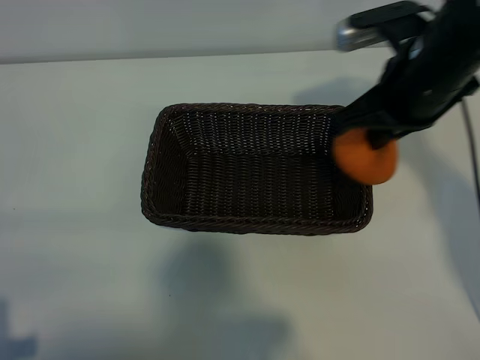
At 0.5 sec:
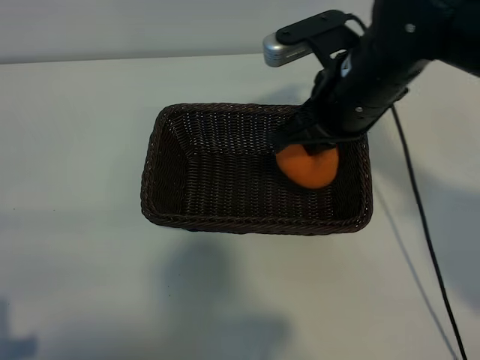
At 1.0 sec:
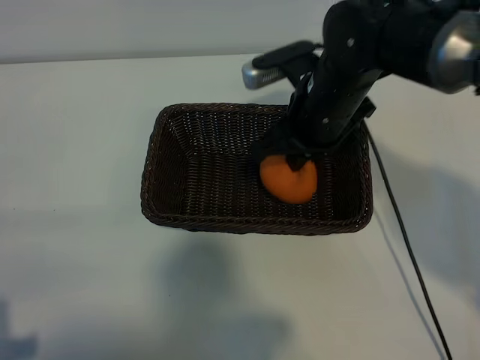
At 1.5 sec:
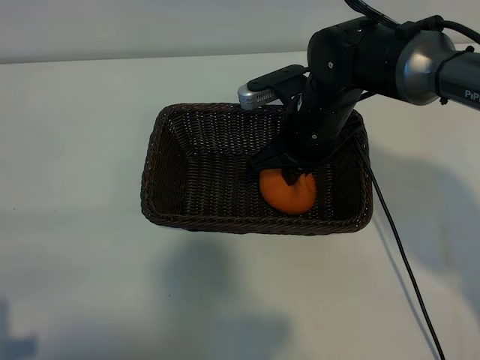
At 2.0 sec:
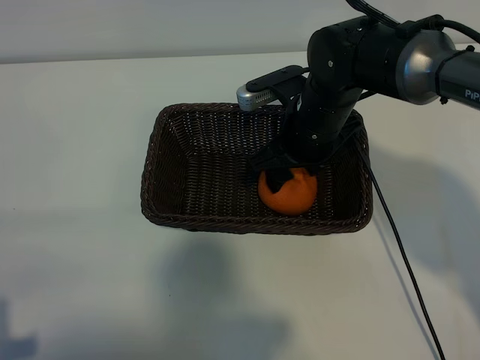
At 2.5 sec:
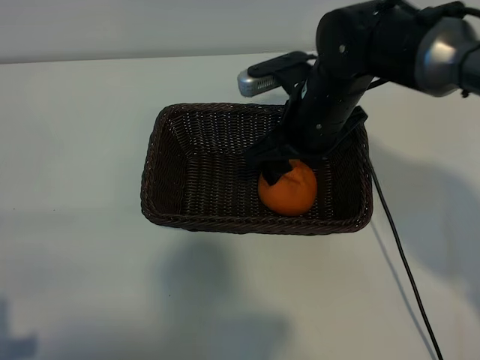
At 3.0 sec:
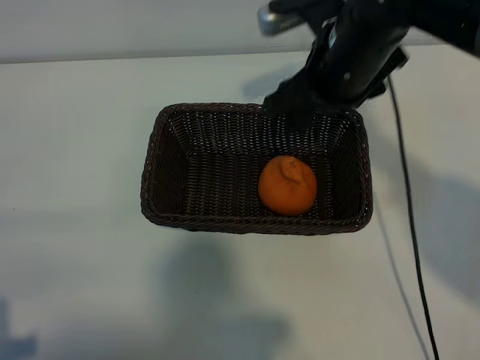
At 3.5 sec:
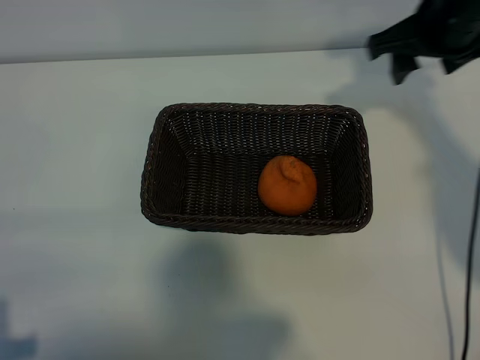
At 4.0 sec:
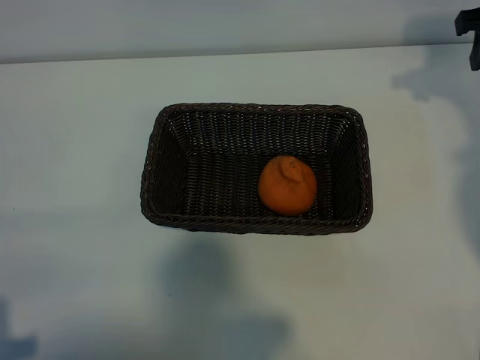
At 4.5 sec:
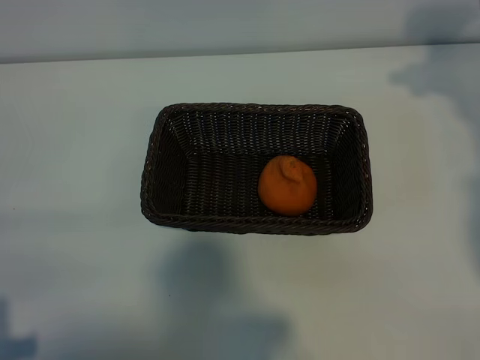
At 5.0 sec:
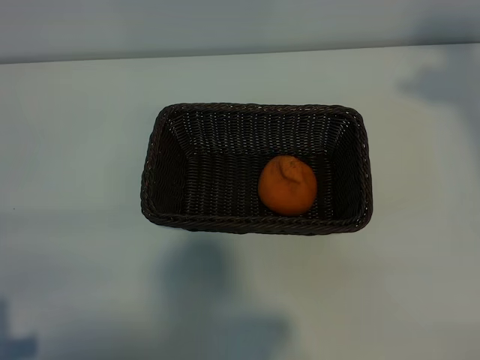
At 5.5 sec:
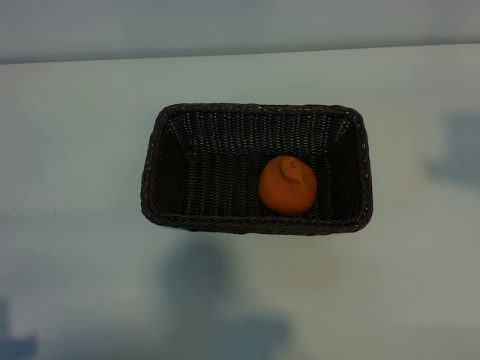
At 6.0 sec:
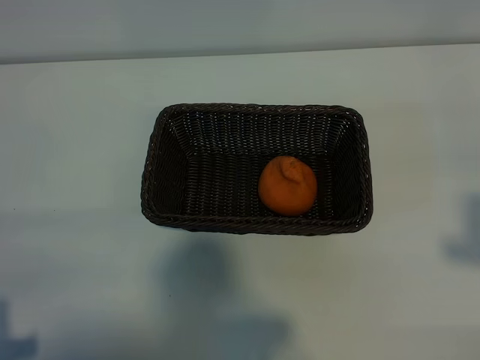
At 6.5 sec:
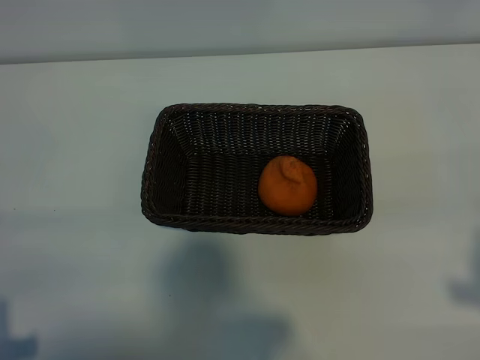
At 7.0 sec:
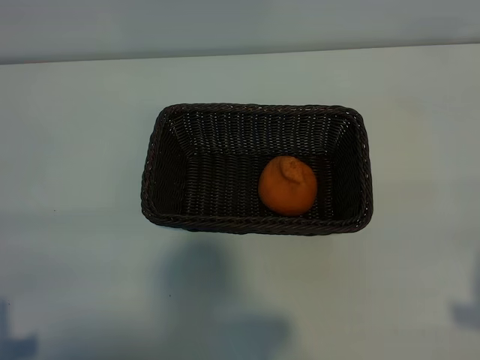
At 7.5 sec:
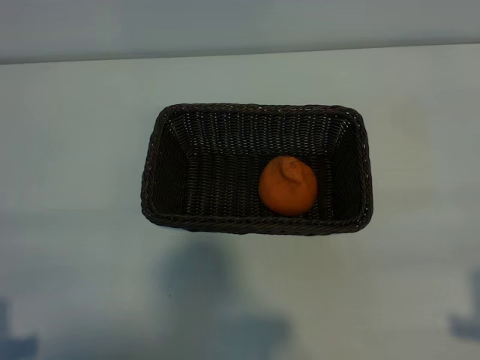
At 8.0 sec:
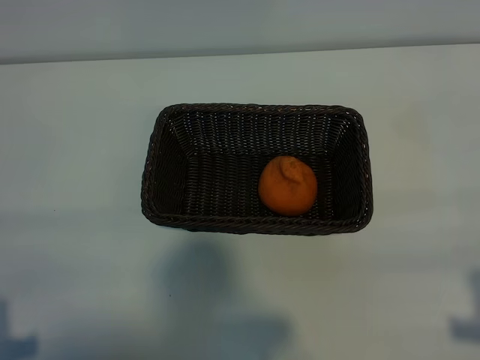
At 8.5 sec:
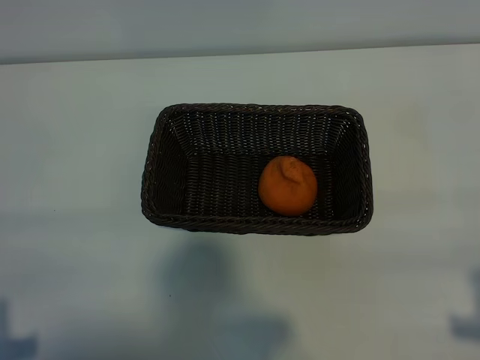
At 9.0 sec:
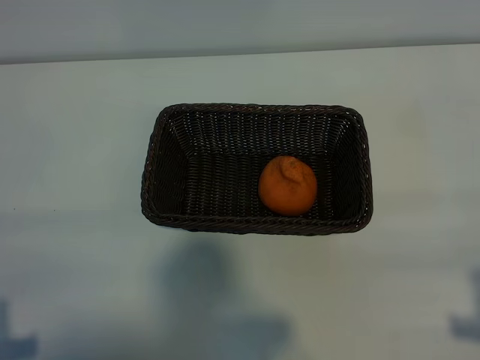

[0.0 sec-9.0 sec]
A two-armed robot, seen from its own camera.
Task of the whole recording: pick up the orange and put it into the basket.
Step, 0.0 sec to 2.0 sec: Place the orange in the basket with right gripper.

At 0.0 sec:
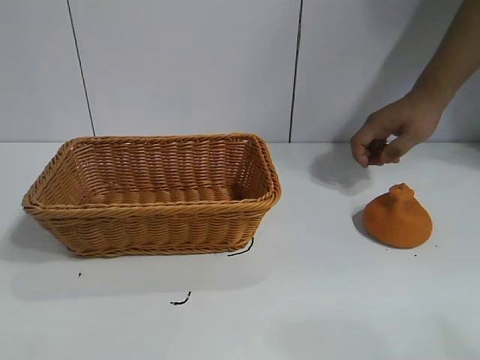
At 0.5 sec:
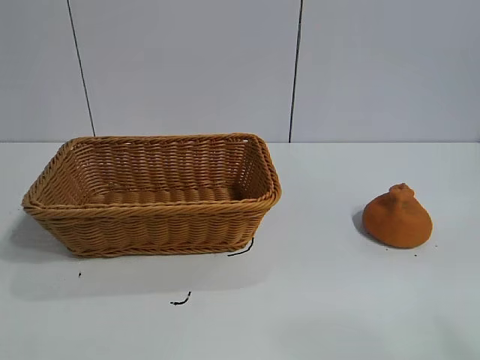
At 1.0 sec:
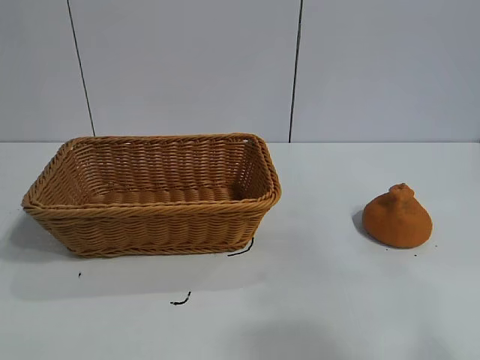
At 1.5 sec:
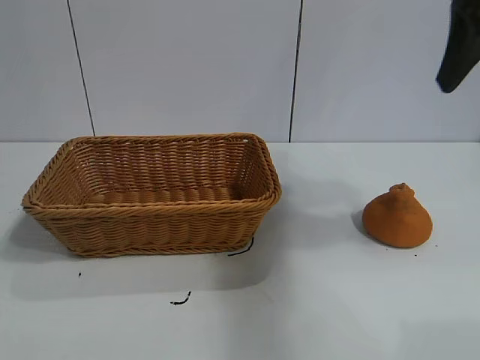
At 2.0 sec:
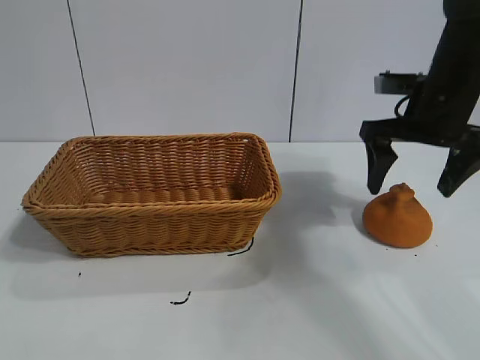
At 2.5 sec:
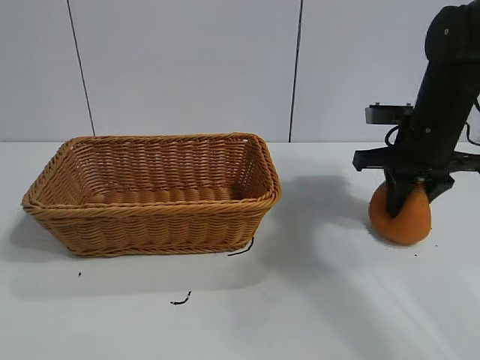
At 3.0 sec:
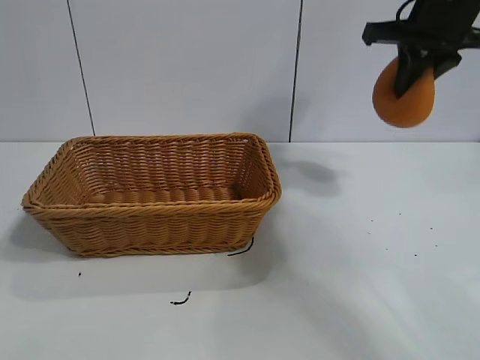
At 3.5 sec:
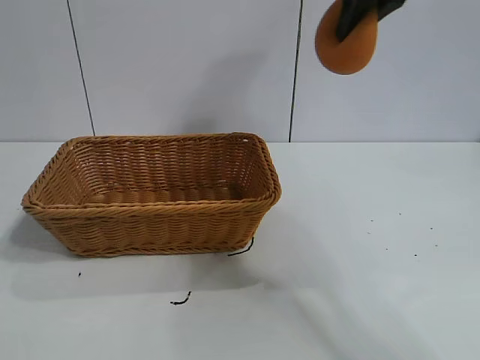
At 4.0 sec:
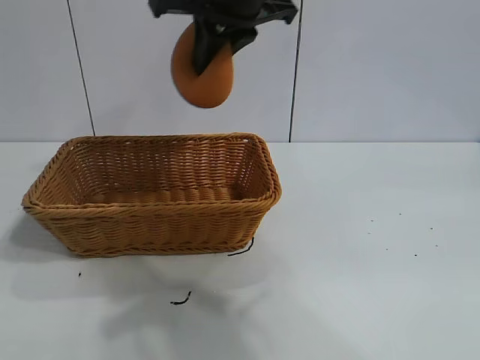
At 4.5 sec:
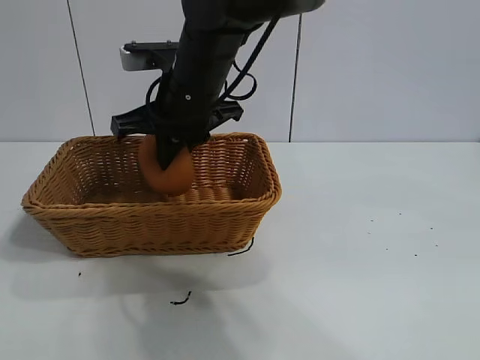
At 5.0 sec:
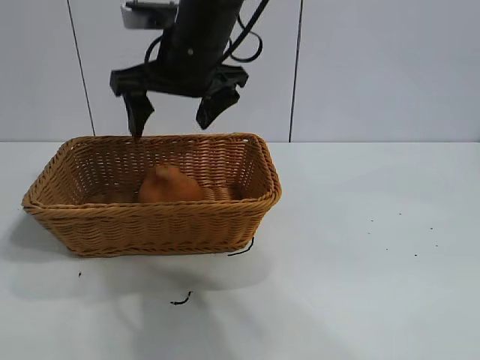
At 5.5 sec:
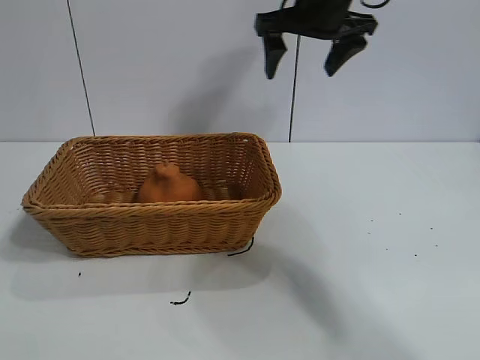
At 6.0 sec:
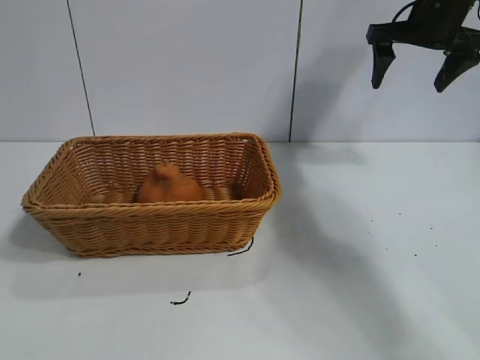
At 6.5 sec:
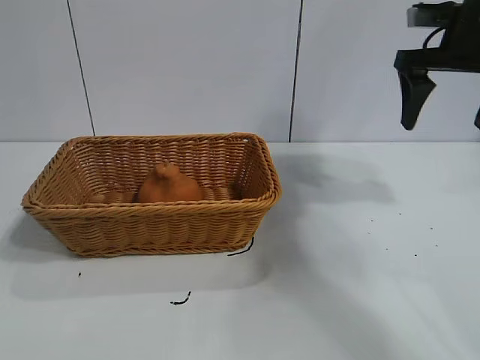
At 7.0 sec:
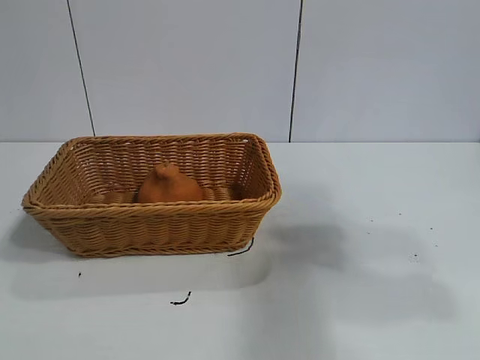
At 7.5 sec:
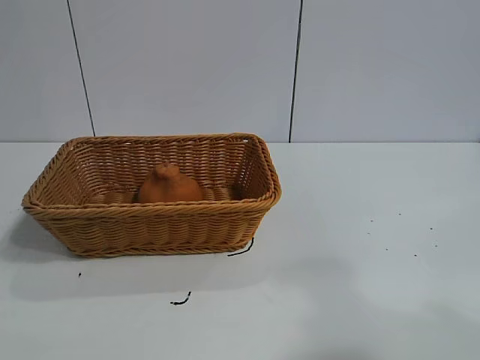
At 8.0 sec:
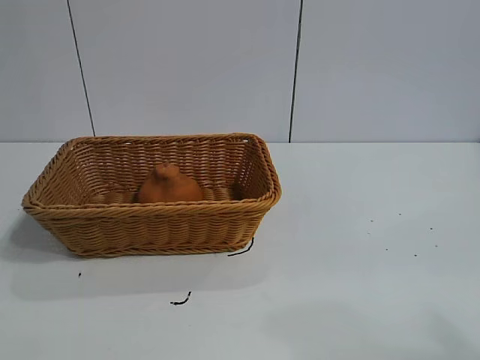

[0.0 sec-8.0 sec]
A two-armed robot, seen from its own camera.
Task of the whole recording: pick up the orange and put it into the basket.
Step, 1.0 sec to 2.5 sec: Grasp the orange with right gripper.
Step, 3.0 sec to 4.5 sec: Place the orange in the basket with right gripper.
